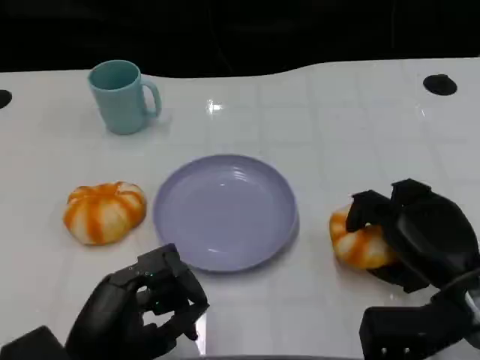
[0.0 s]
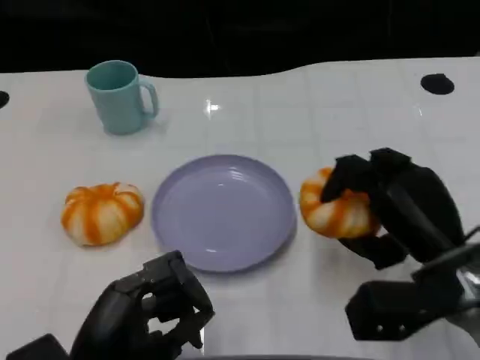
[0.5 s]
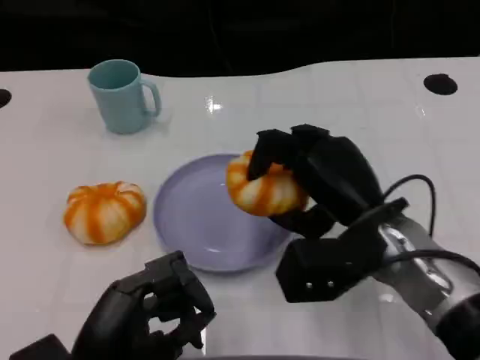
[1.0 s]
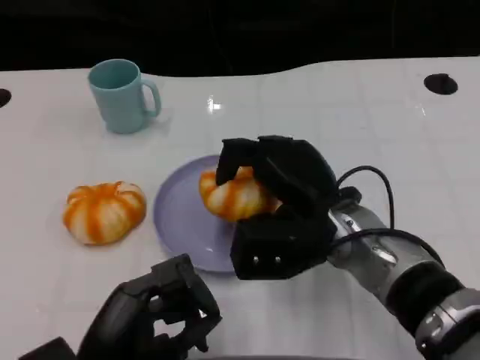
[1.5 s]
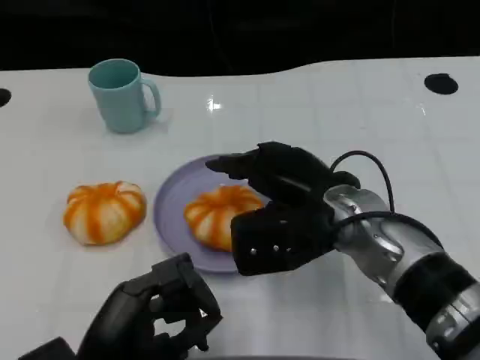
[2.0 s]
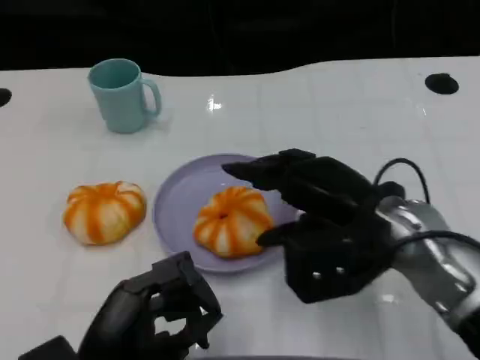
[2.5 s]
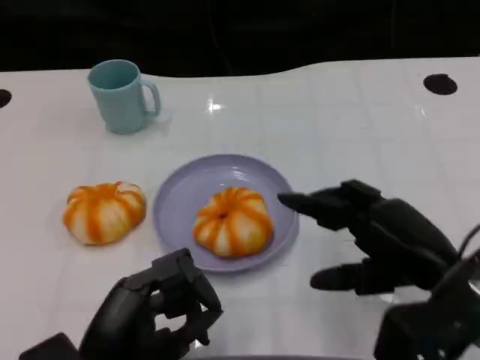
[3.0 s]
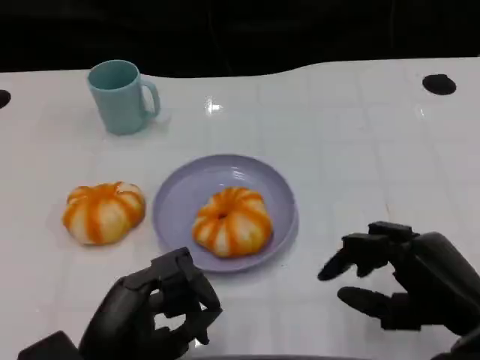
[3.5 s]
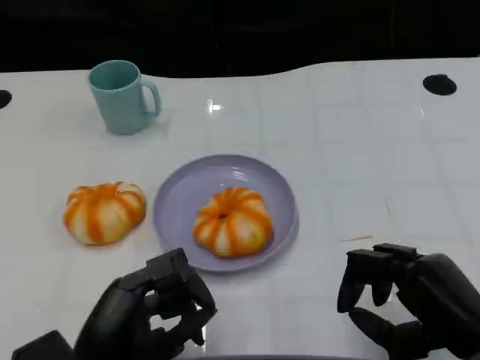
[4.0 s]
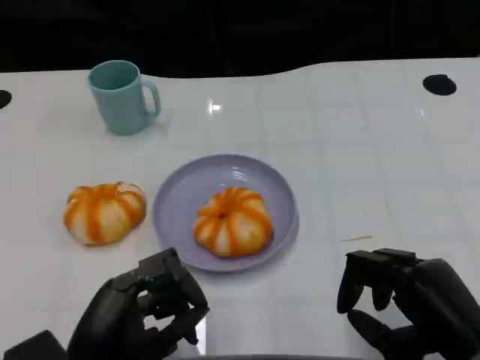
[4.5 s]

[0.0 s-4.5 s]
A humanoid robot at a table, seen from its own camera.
Task of the whole recording: Grasp the bread from the table and place it into the plate.
0.0 to 2.0 s: The right hand shifts roughly 15 cm to the left, upward and forward.
2.0 to 4.5 s: The right hand heads to the right, backward and downward, covering some 20 cm.
